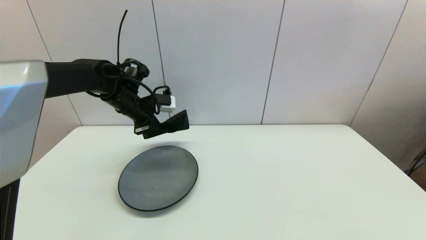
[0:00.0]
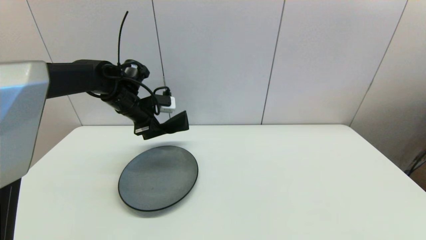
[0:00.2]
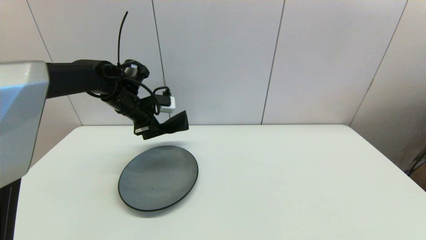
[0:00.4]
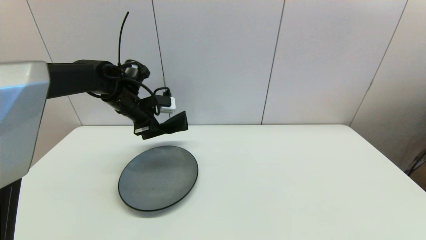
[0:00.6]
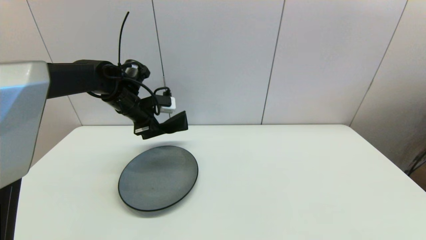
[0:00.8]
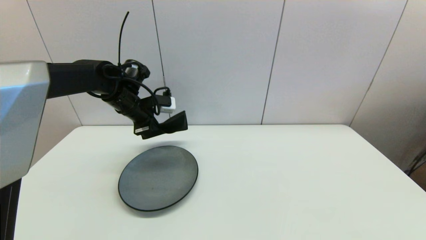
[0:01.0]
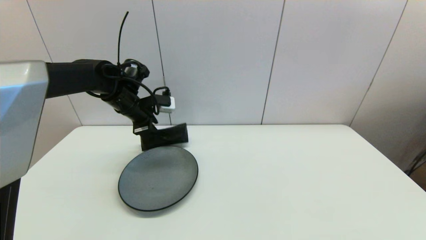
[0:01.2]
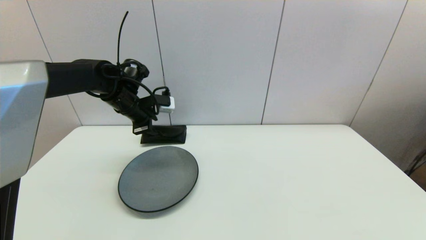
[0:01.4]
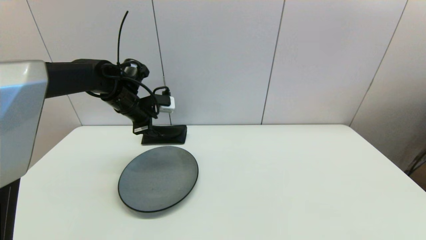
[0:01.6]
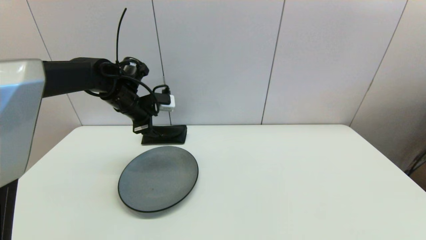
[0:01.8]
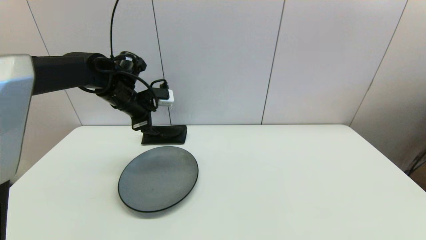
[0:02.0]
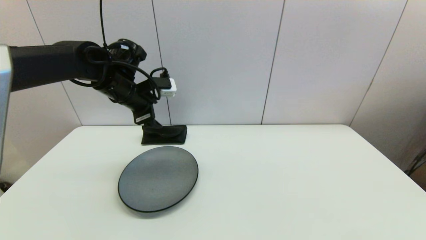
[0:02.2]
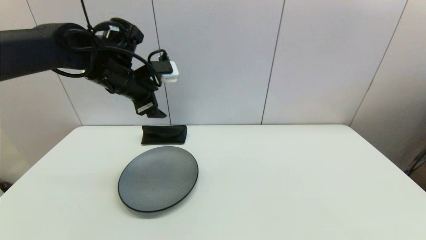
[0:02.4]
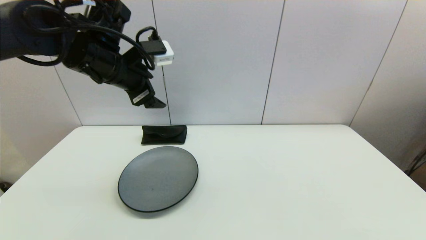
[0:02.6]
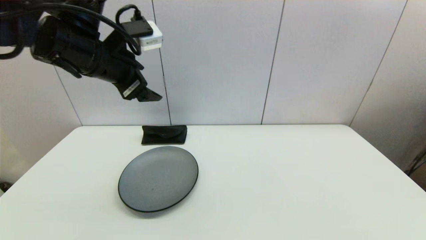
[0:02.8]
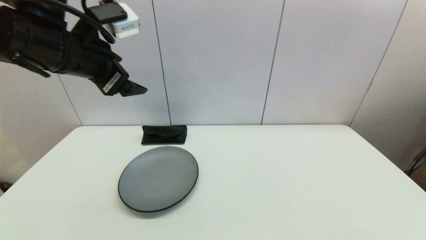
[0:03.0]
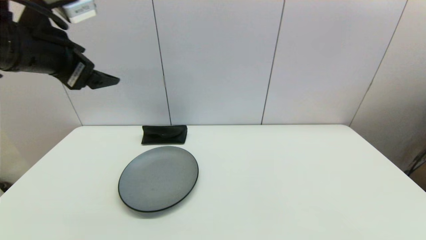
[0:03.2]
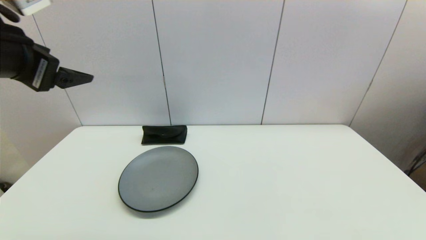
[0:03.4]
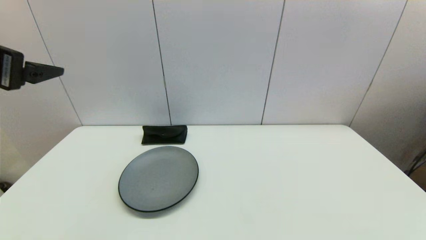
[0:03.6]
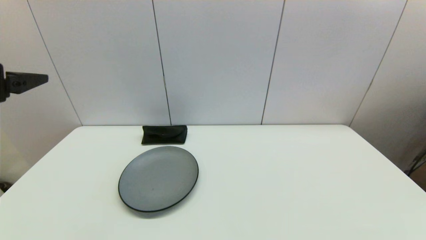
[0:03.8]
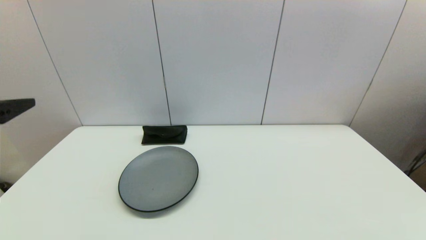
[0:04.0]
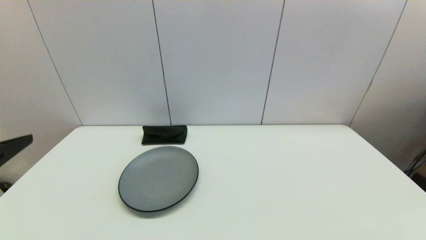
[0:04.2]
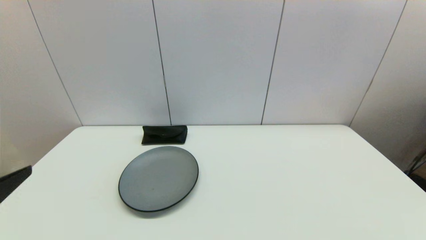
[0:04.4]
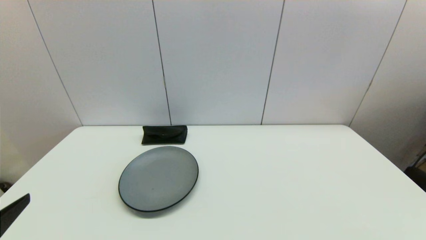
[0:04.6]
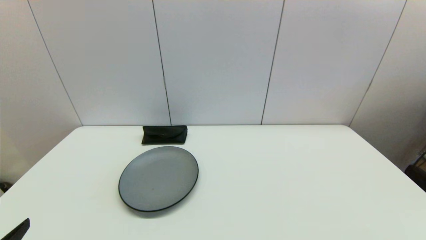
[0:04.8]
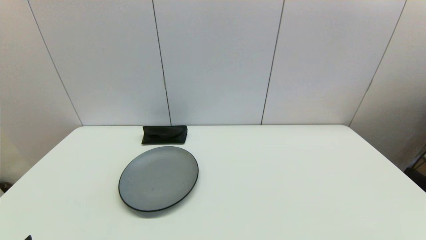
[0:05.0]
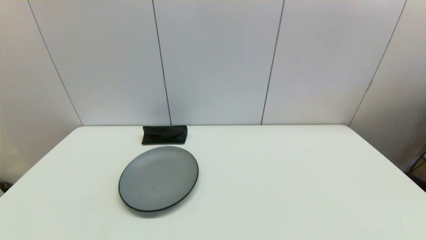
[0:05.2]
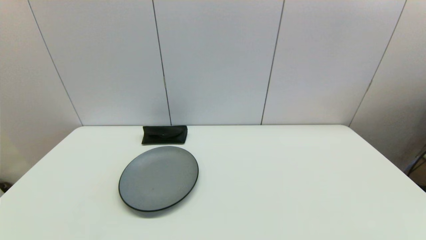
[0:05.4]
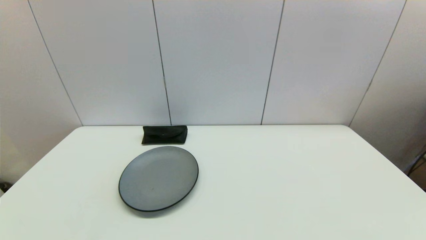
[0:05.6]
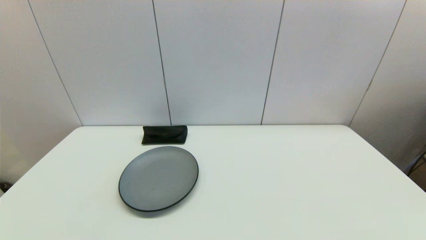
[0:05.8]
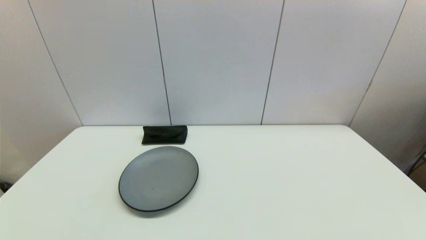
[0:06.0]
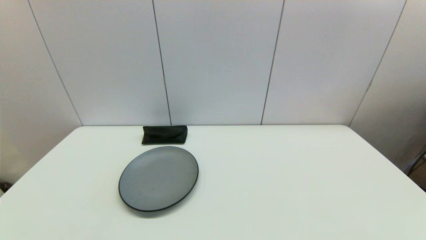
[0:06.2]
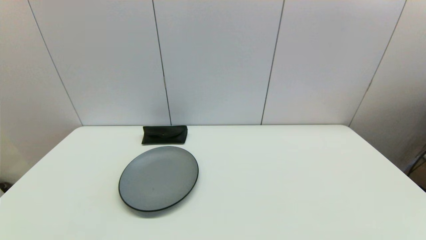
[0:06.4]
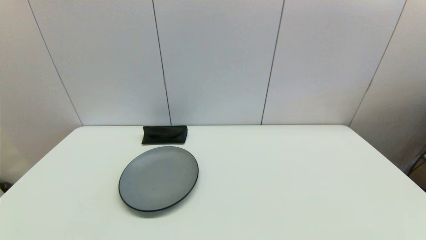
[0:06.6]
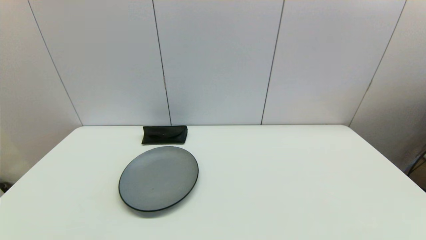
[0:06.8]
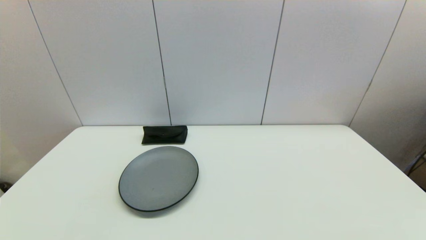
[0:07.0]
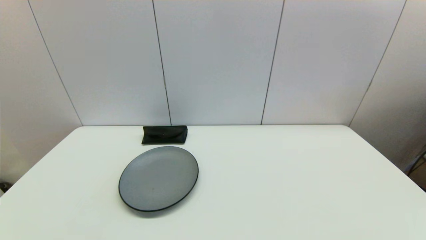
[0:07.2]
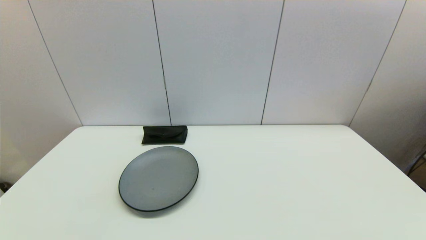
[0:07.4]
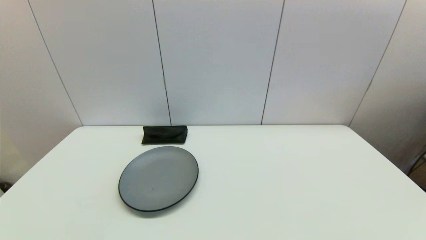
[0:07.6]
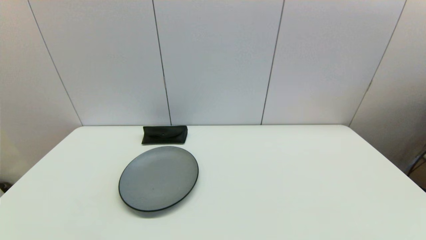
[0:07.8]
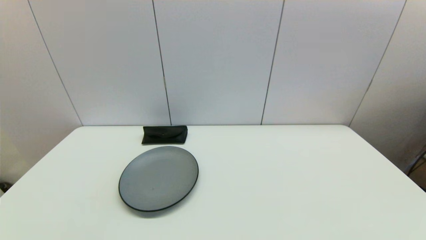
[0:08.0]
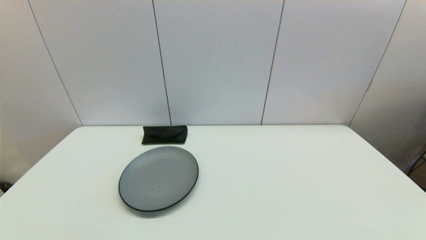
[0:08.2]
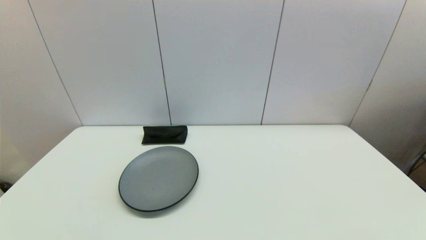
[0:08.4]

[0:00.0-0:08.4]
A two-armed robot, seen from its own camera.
0:00.0 to 0:01.4: The left gripper opens.
0:01.4 to 0:02.8: The left gripper travels upward and backward by about 20 cm, and opens.
0:02.8 to 0:04.2: The left gripper is displaced backward and to the left by approximately 25 cm.
0:05.6 to 0:08.4: Both grippers stay about where they are.
